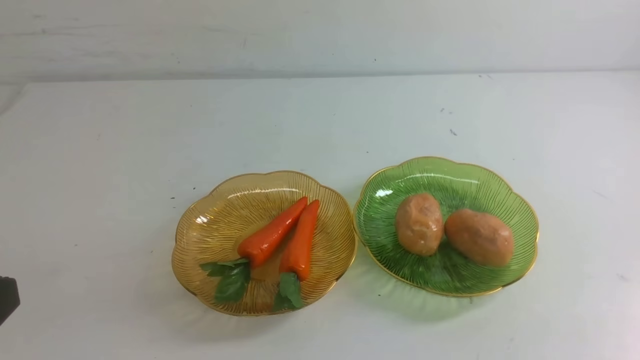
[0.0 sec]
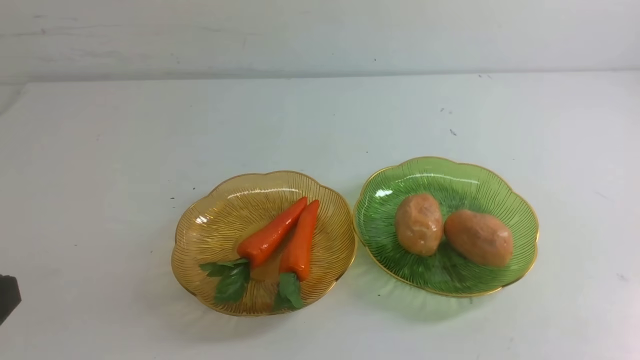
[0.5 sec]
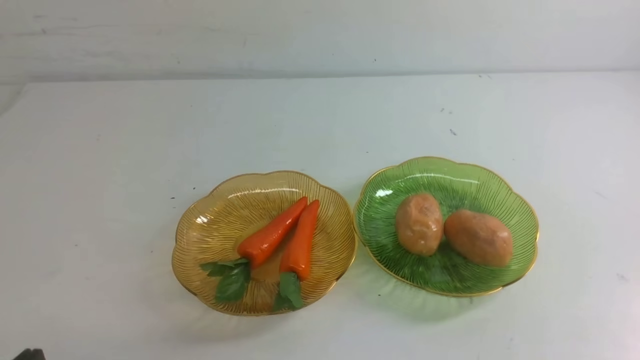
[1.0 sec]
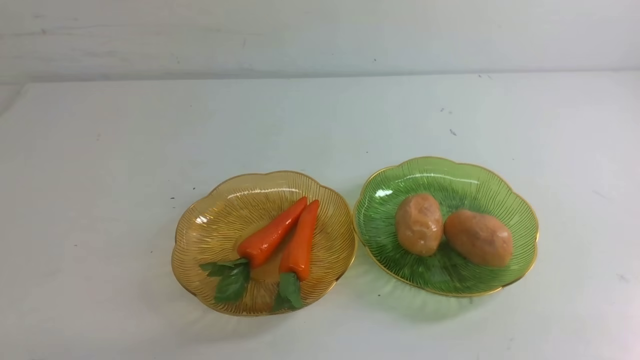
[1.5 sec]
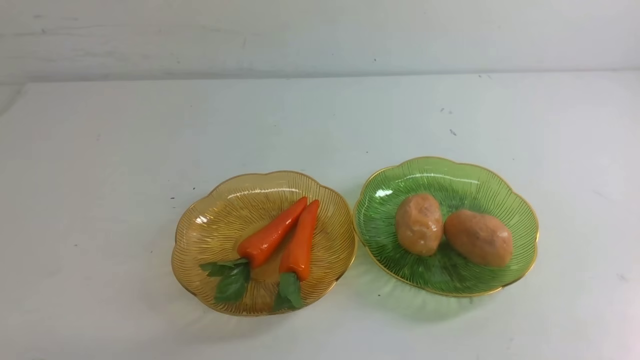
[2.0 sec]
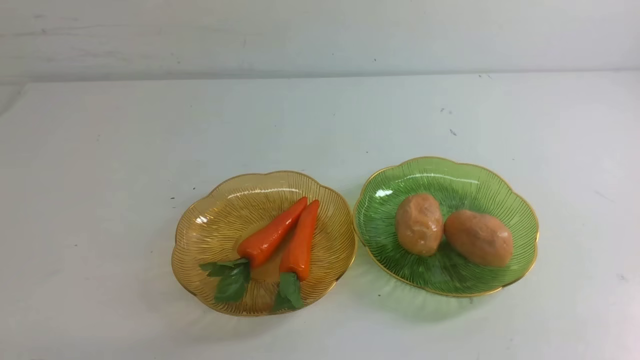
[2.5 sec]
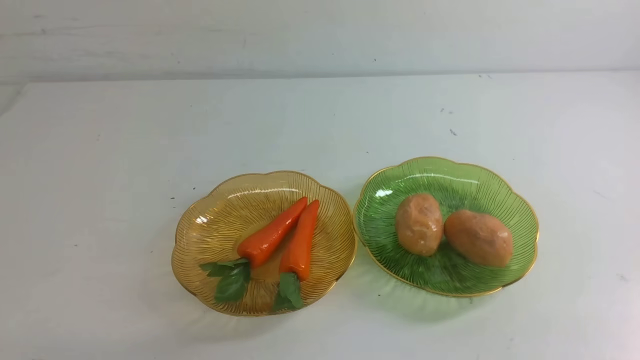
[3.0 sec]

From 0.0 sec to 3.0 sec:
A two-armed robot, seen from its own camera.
From 1.5 sec to 3.0 sec: Both grippers stay about where they are.
